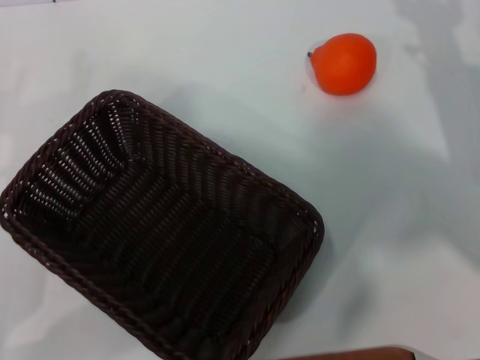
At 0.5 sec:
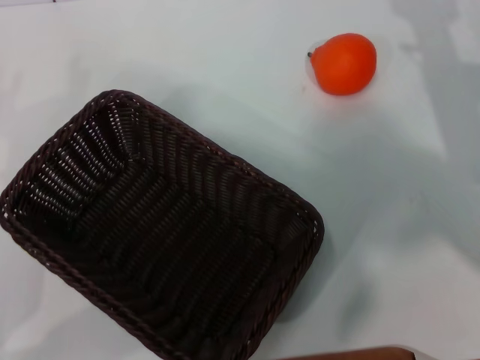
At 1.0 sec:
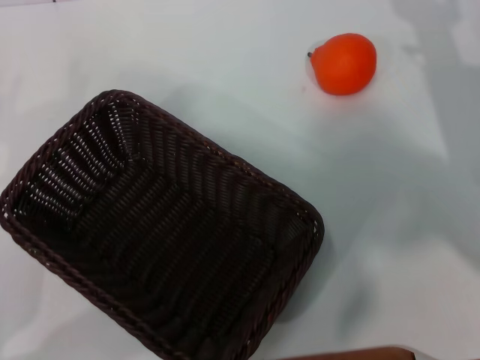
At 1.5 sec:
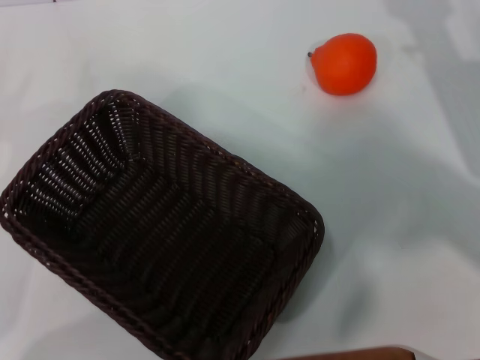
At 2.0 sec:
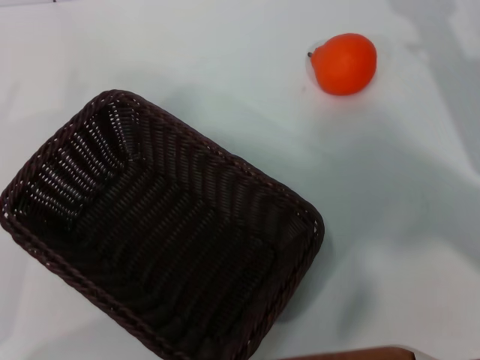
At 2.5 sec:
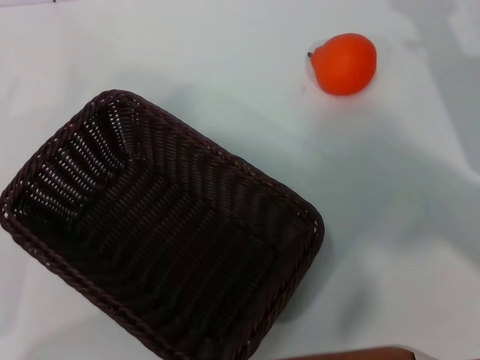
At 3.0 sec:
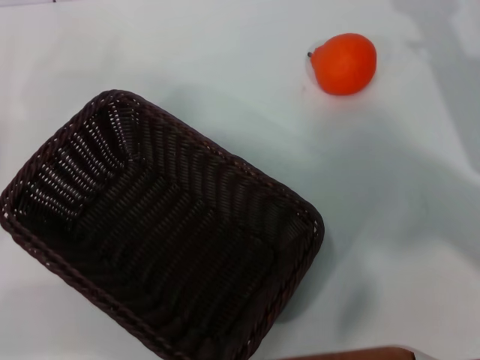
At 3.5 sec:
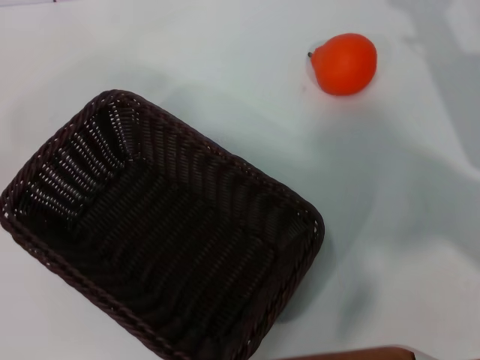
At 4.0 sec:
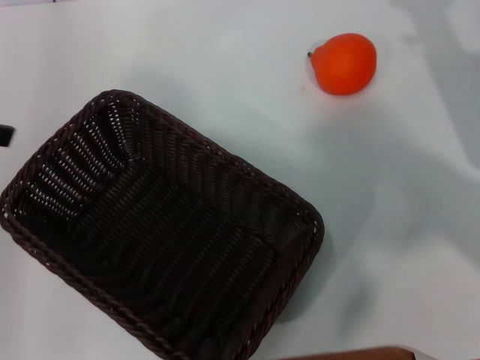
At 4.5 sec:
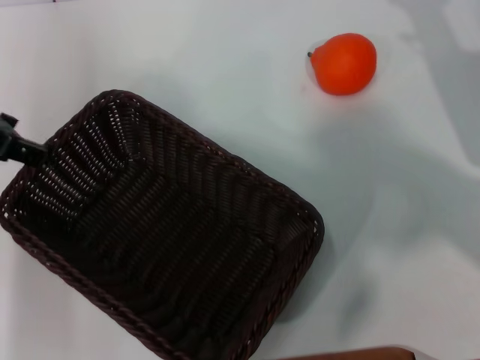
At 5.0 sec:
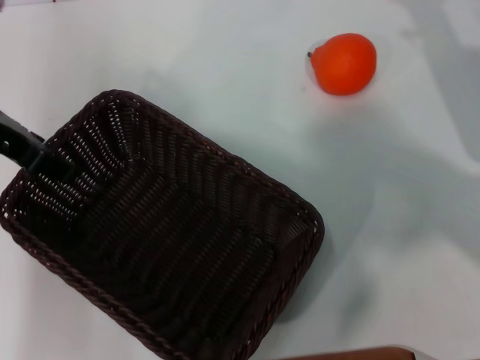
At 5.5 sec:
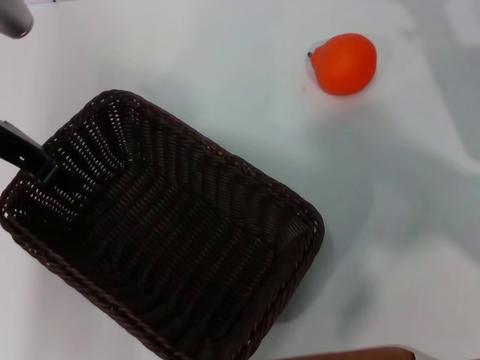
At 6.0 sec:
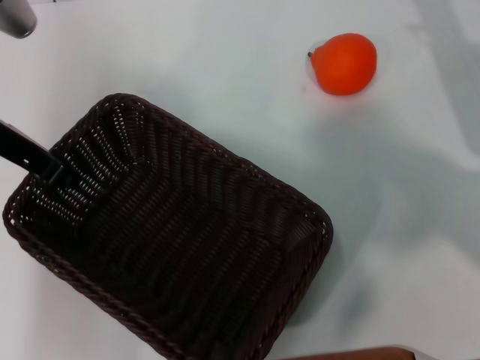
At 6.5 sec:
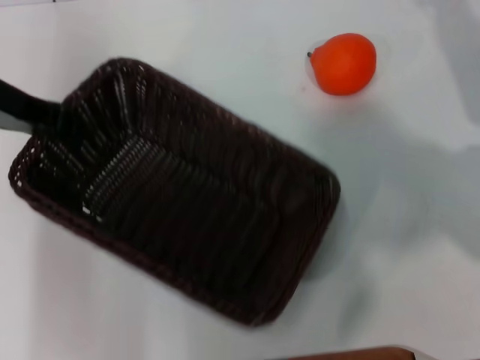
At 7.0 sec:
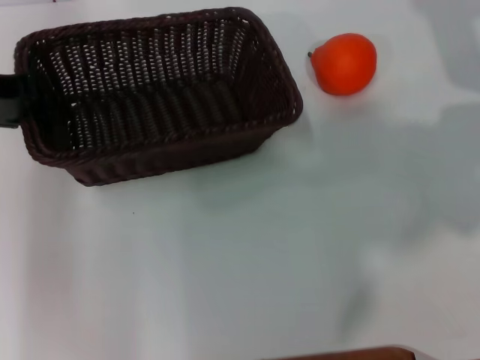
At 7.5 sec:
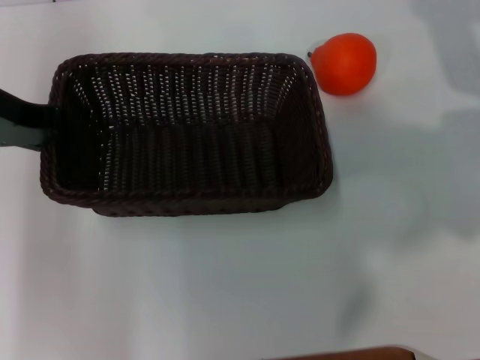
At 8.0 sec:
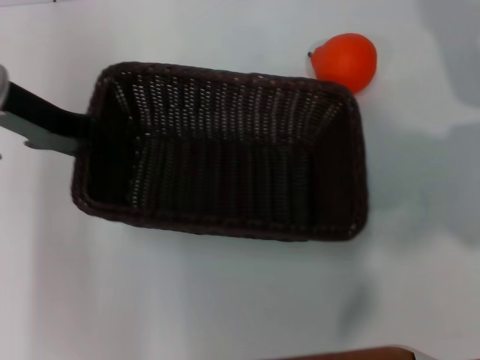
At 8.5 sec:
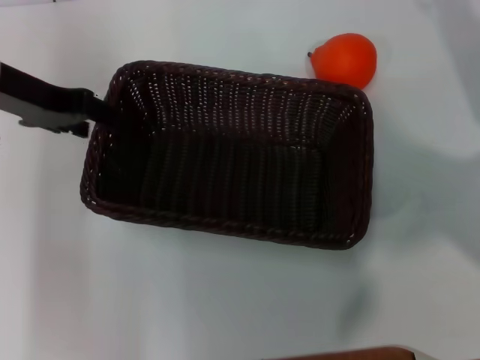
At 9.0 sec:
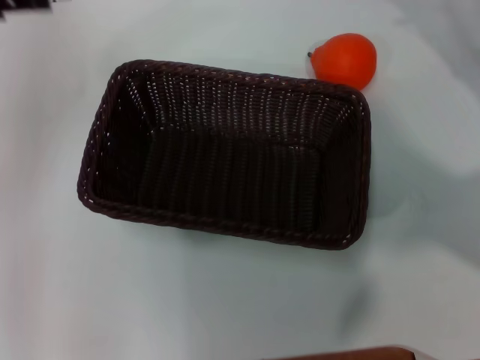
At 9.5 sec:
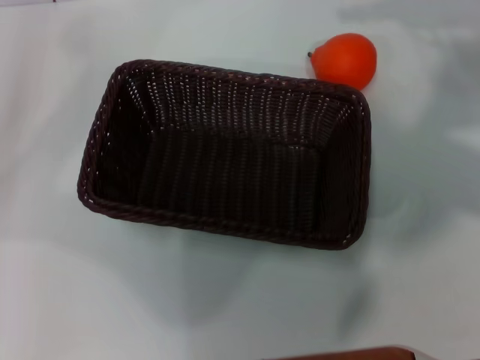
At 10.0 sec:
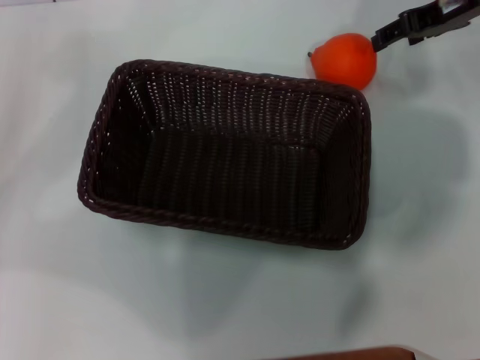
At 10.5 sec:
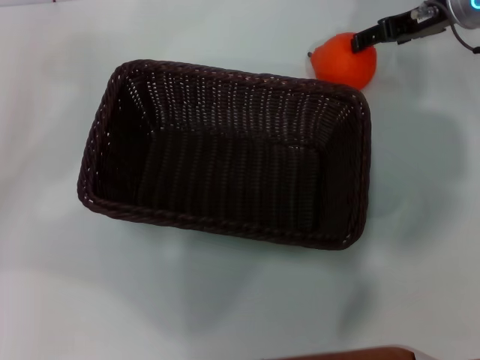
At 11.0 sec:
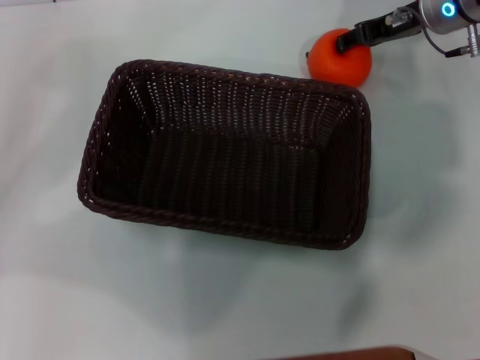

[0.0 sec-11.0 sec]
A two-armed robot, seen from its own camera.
Task of the whole recording: the left gripper pick up the black basket and place it horizontally in the middle of the table, the right gripper pick up the orange and place it into the black basket.
Step, 0.0 sec to 6.5 sec: Pick up the dark basket with the left gripper.
Step, 7.0 sec to 8.5 sec: Place the dark basket in the center of view with the left gripper.
2.0 sec to 3.5 sec: The left gripper goes some 20 cm upward.
3.5 sec to 5.5 sec: The left gripper travels to the right and forward by approximately 20 cm.
5.5 sec to 7.5 sec: The left gripper closes. Meanwhile the right gripper moves forward and upward, some 10 cm.
7.5 sec to 9.0 sec: The left gripper travels to the left by approximately 5 cm, and opens.
9.0 sec to 11.0 sec: The left gripper moves backward, downward and to the left, roughly 10 cm. The right gripper goes approximately 15 cm to the left and forward.

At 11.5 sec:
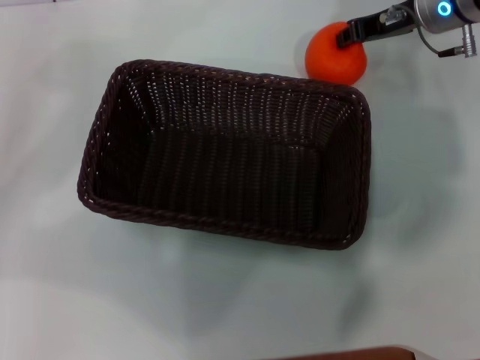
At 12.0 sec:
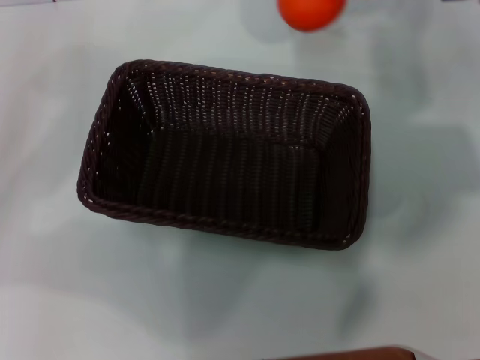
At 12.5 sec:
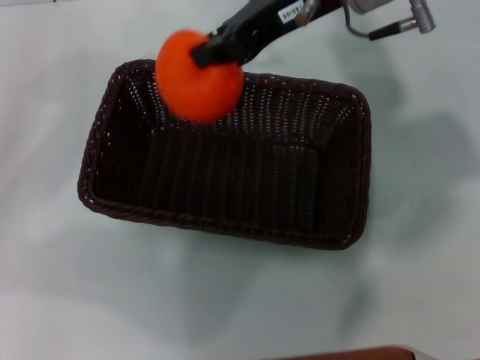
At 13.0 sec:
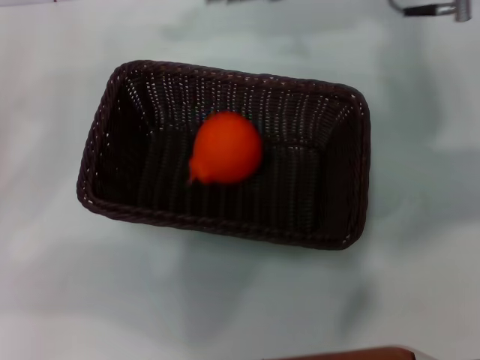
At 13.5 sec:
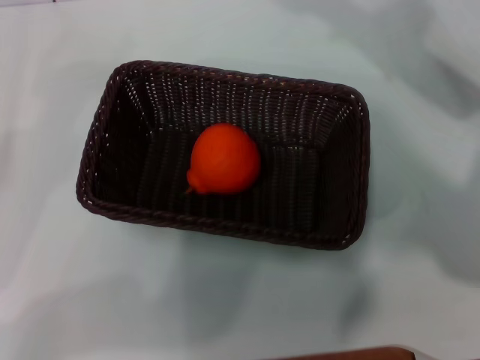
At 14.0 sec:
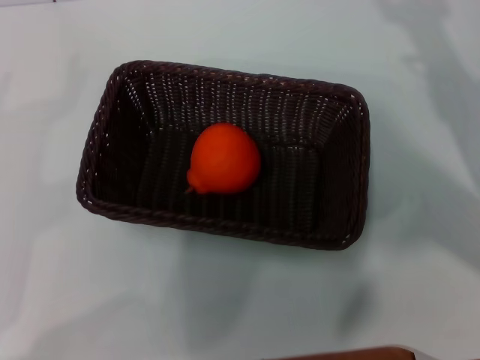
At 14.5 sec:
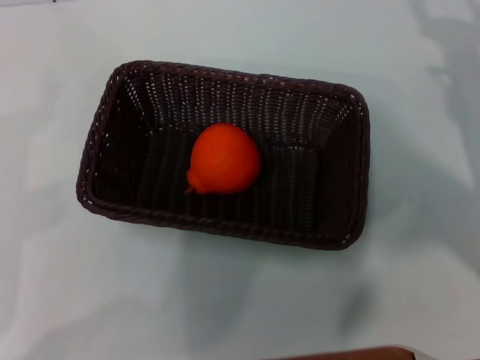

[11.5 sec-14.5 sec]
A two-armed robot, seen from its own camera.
Task of the whole recording: the left gripper pick up the black basket and place it horizontally in the middle of the table, the right gripper pick up the orange and place it into the black basket.
Step, 12.0 sec to 13.0 sec: Place the orange into the dark basket with the right gripper.
11.5 sec to 13.0 sec: The right gripper goes about 15 cm upward, backward and to the left.
13.0 sec to 14.5 sec: The left gripper shifts about 10 cm downward and backward. Meanwhile the right gripper heads downward, to the right and backward, covering about 25 cm, and opens up.
